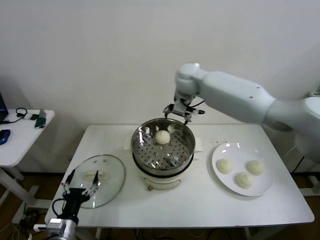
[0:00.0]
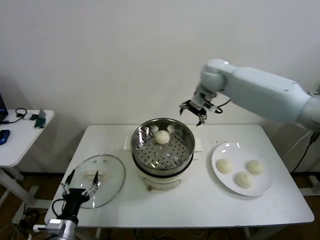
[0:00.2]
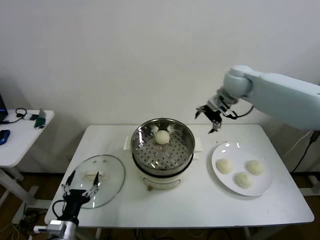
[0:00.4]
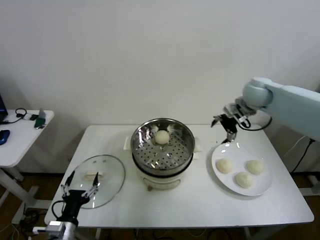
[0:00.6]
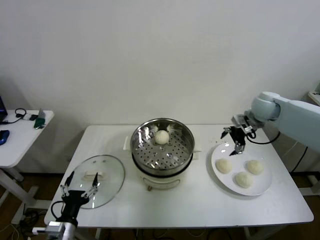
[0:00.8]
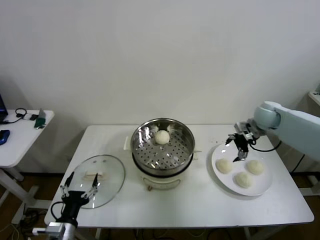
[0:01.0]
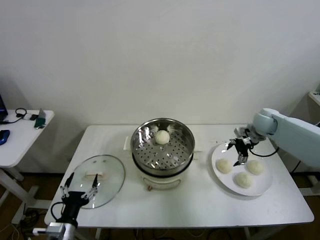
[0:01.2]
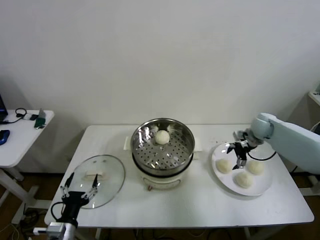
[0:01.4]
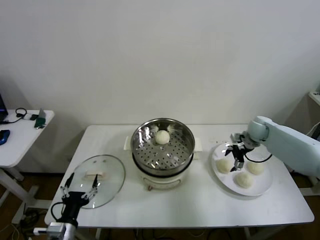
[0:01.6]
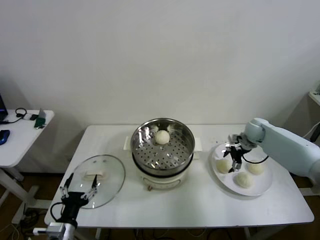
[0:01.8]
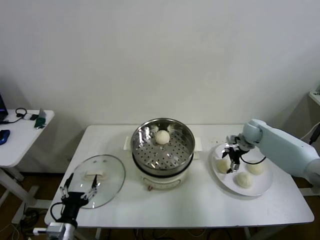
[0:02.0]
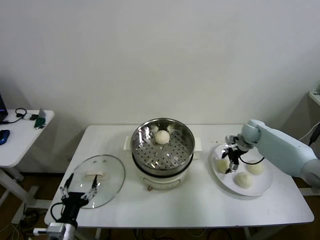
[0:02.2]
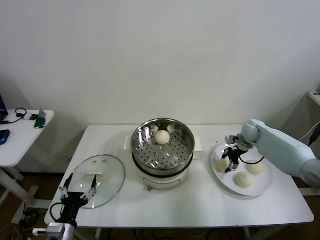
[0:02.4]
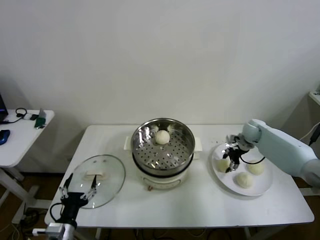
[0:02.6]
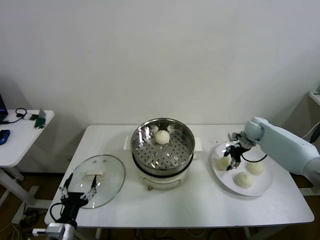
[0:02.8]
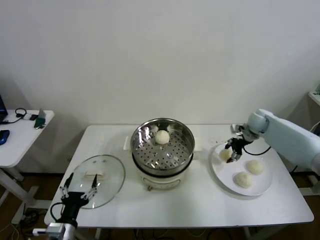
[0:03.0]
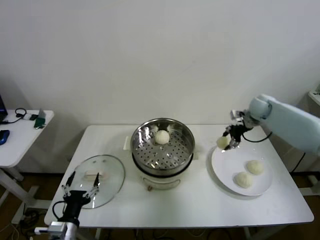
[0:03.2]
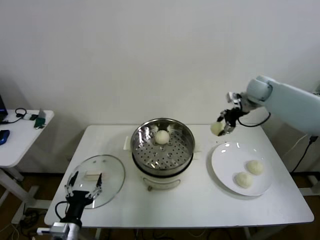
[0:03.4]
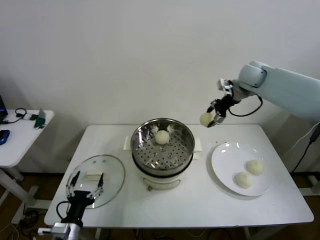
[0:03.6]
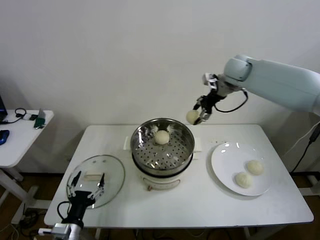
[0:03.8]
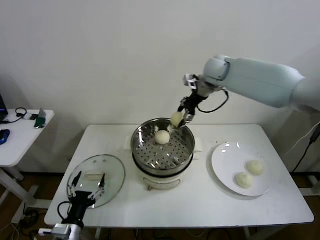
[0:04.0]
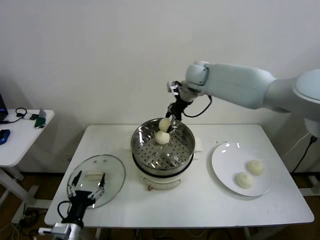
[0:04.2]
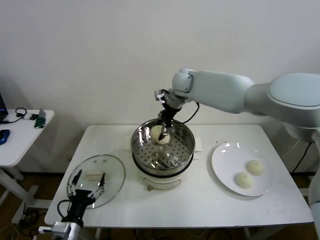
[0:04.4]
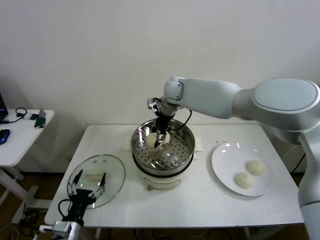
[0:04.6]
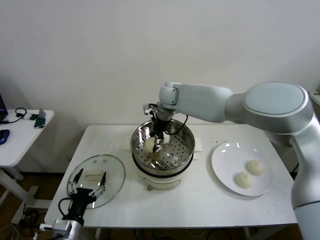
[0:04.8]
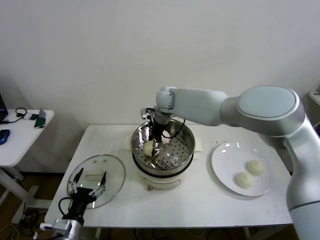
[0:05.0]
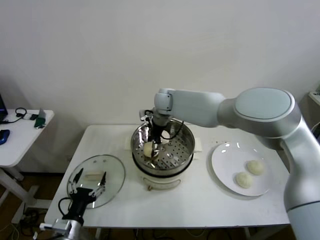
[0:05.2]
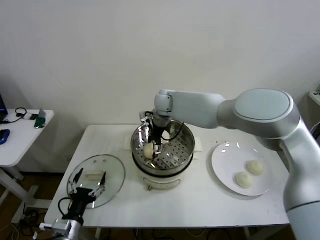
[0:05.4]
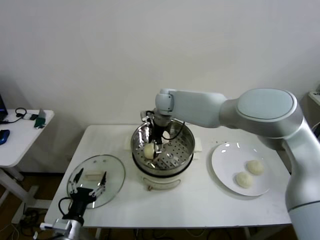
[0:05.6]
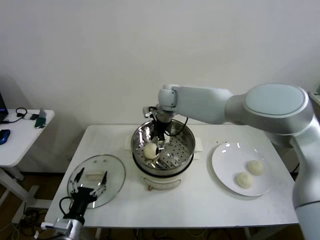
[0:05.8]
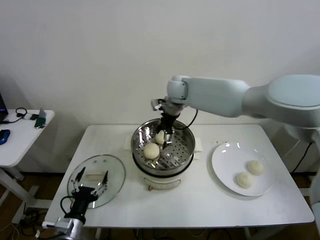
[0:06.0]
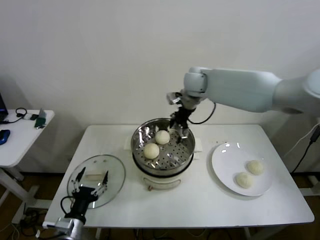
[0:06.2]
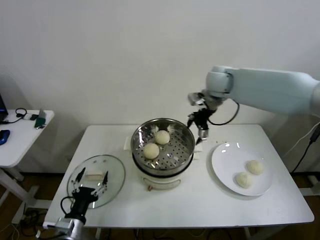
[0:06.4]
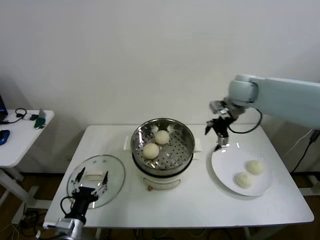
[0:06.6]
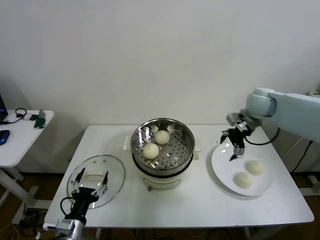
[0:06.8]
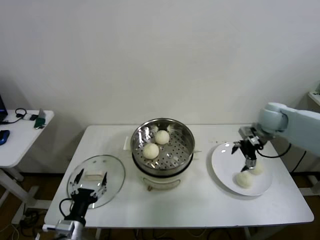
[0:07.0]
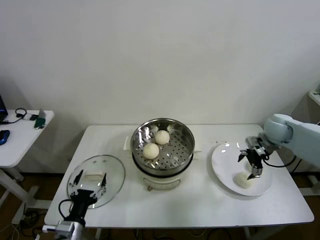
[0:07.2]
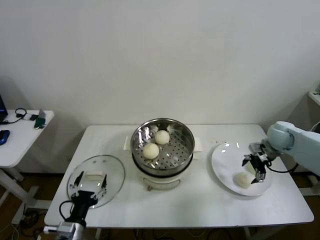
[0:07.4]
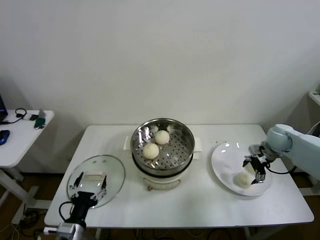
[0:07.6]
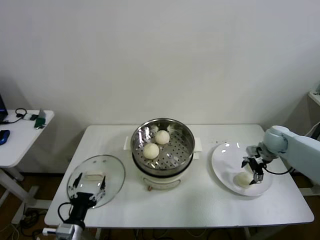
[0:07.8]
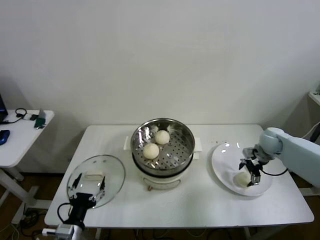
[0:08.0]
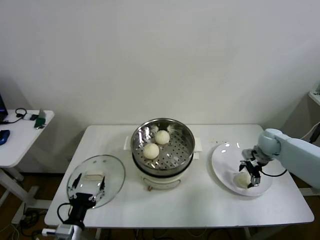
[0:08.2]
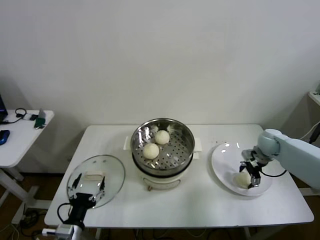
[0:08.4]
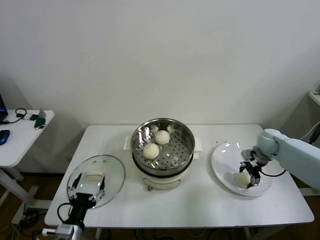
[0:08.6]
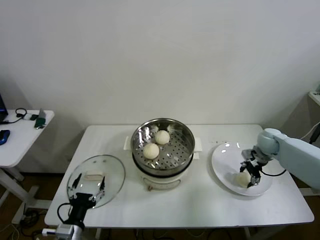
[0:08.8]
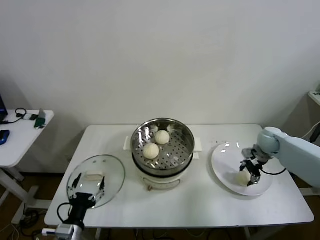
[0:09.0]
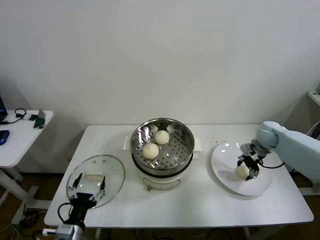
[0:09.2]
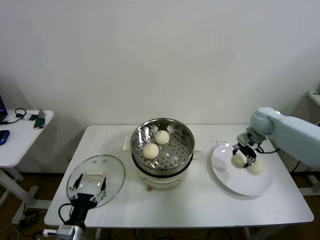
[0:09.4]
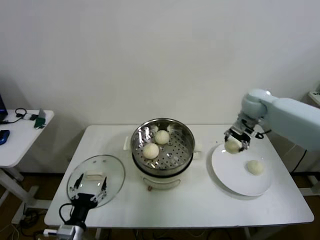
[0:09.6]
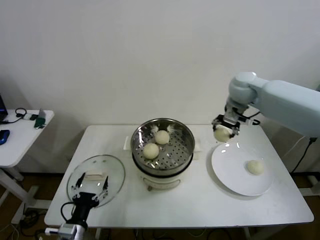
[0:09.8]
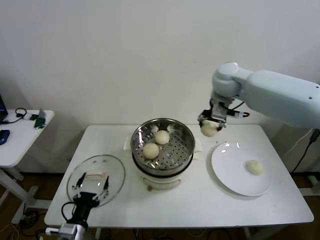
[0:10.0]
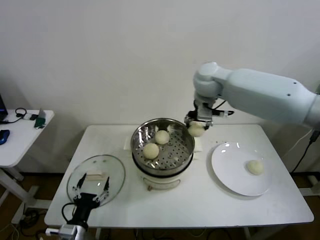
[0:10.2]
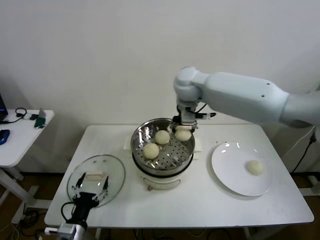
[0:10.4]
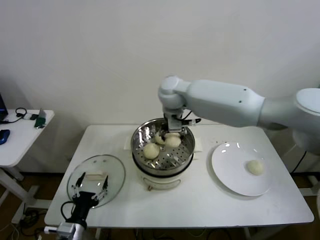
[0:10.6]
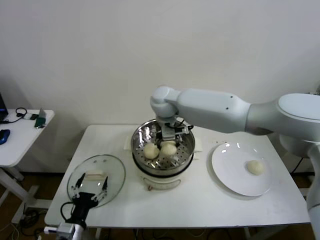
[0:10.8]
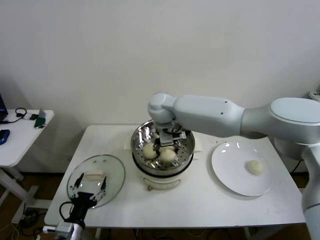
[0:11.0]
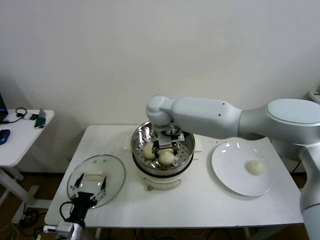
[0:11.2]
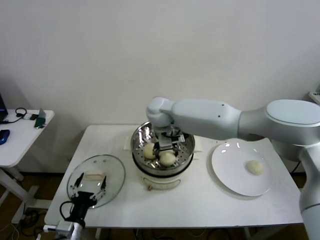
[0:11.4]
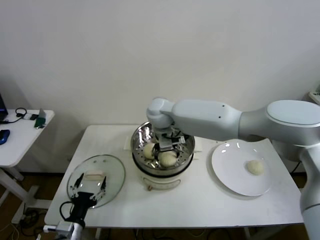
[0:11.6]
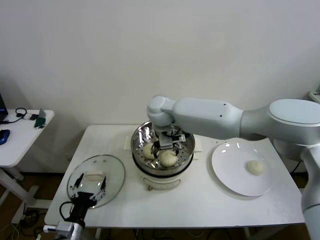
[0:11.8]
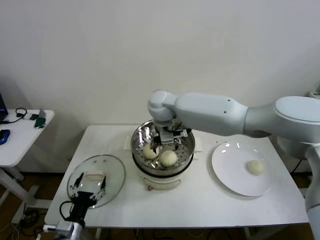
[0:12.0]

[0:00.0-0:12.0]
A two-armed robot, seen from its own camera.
Step, 0:00.0 to 0:02.2: Grasp the baozi in the plate with right gripper.
Step, 0:02.6 to 0:05.6: Place the baozi on the steamer with right gripper.
Step, 0:05.8 to 0:08.8: Grasp the baozi in the plate with right gripper.
Step, 0:09.0 to 0:11.4: Place the baozi on the steamer with right gripper.
0:00.0 to 0:01.6: The right gripper moves to the right and downward, roughly 35 cm.
0:01.6 to 0:03.0: The right gripper moves approximately 5 cm, and closes up.
0:03.0 to 0:04.4: The right gripper moves to the left and upward, about 35 cm.
0:04.4 to 0:06.0: The right gripper opens up.
0:06.0 to 0:07.6: The right gripper moves to the right and downward, approximately 40 cm.
0:07.6 to 0:09.0: The right gripper closes.
0:09.0 to 0:10.4: The right gripper is displaced to the left and upward by approximately 40 cm.
0:10.4 to 0:12.0: The right gripper travels to the left and downward by roughly 10 cm, and opens up.

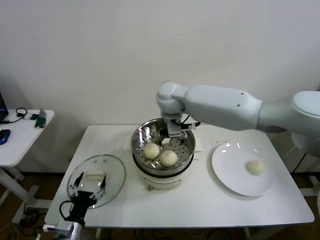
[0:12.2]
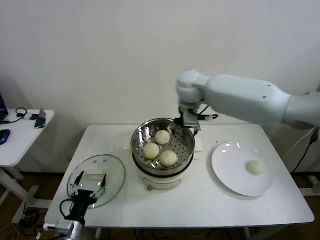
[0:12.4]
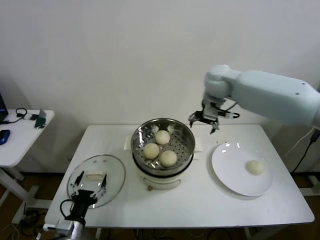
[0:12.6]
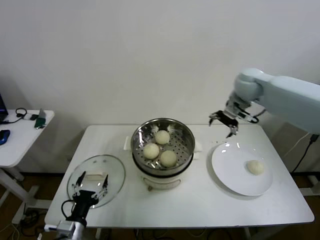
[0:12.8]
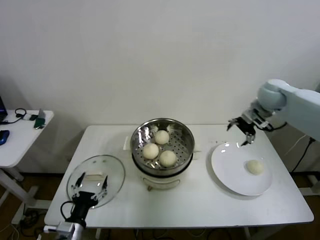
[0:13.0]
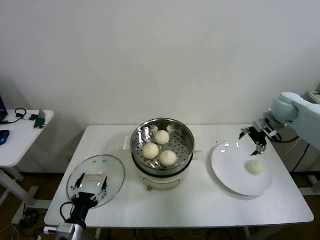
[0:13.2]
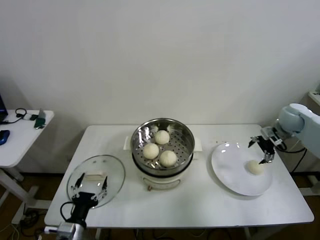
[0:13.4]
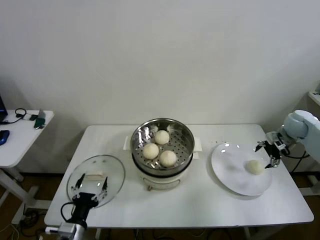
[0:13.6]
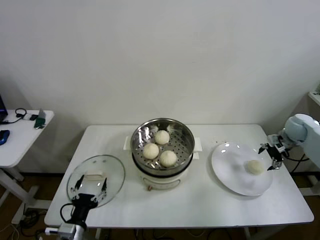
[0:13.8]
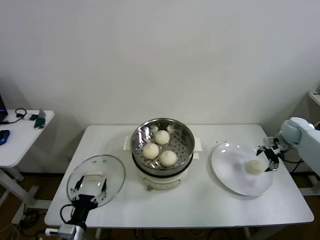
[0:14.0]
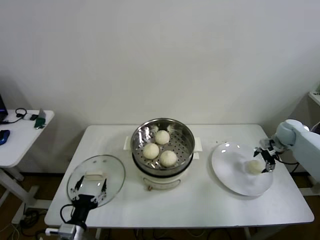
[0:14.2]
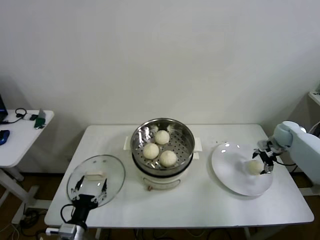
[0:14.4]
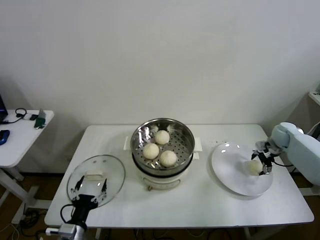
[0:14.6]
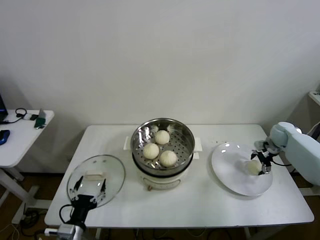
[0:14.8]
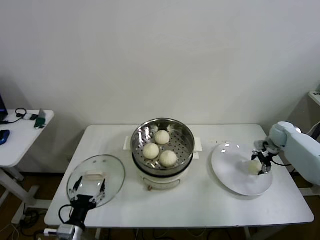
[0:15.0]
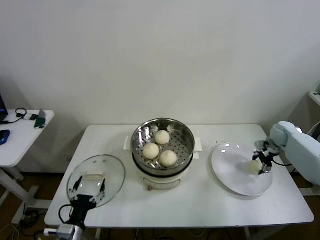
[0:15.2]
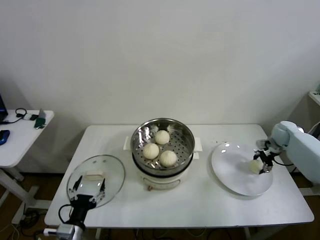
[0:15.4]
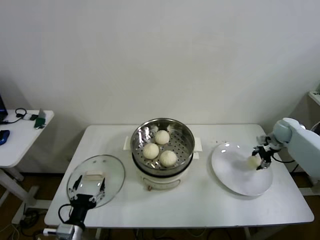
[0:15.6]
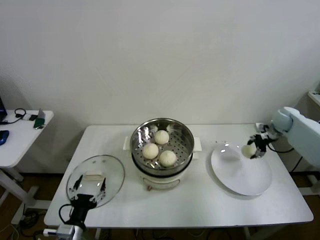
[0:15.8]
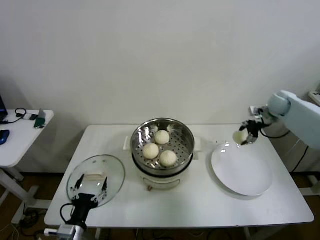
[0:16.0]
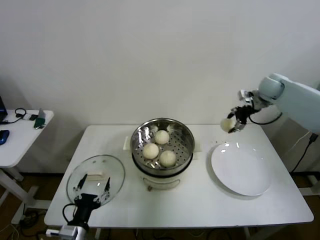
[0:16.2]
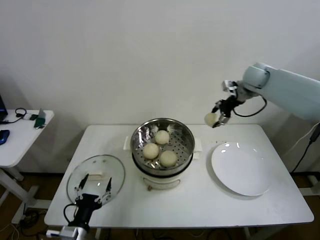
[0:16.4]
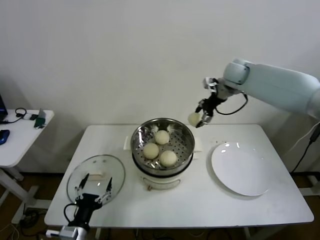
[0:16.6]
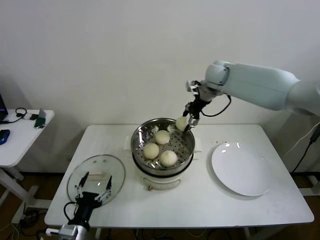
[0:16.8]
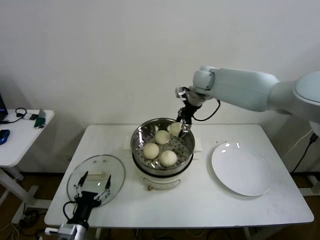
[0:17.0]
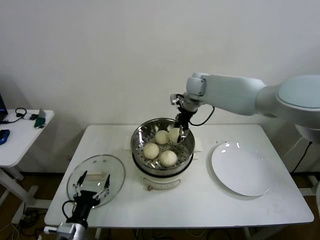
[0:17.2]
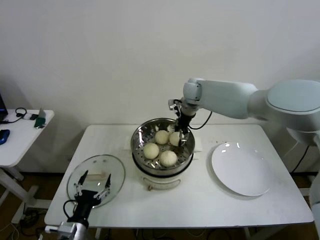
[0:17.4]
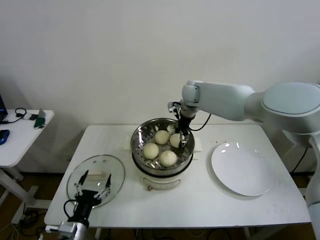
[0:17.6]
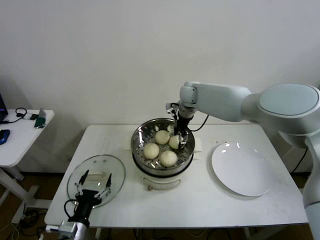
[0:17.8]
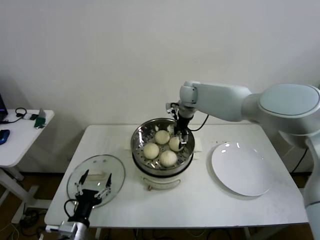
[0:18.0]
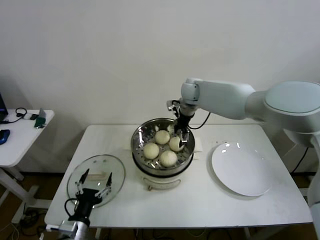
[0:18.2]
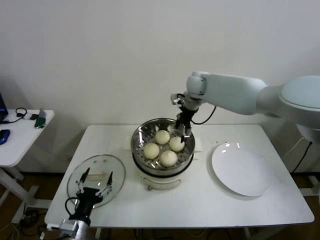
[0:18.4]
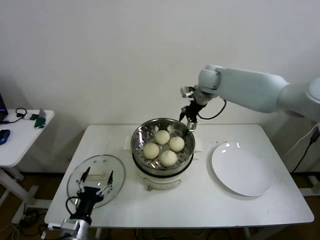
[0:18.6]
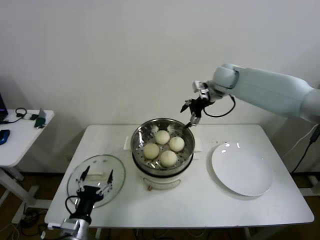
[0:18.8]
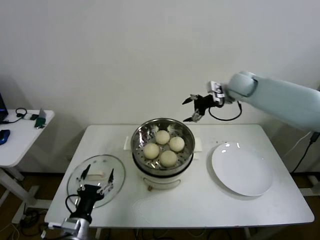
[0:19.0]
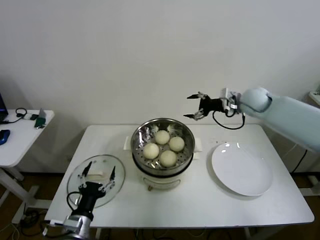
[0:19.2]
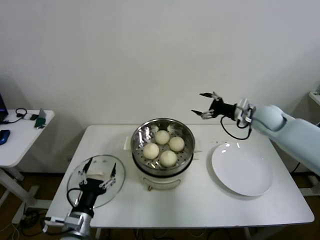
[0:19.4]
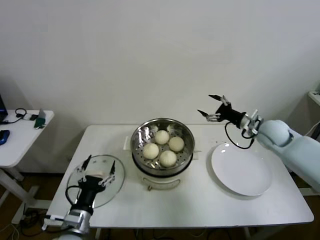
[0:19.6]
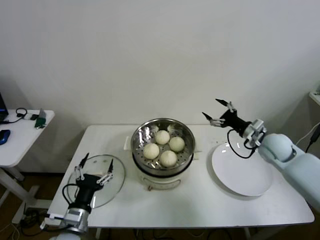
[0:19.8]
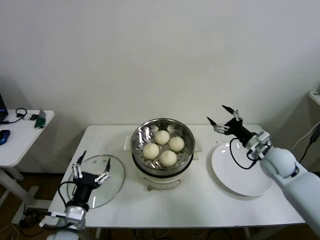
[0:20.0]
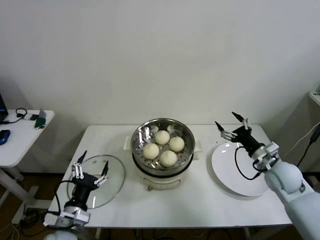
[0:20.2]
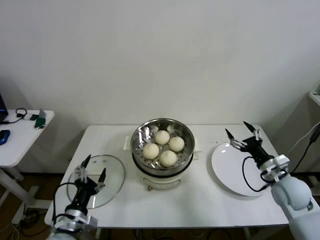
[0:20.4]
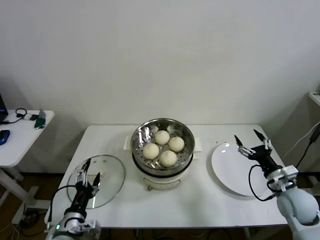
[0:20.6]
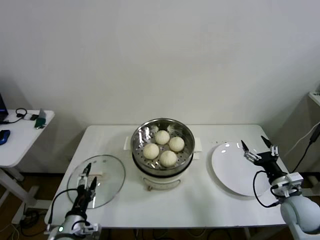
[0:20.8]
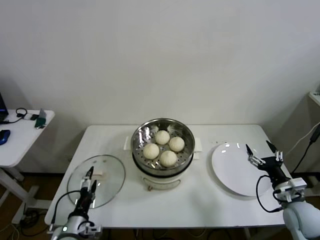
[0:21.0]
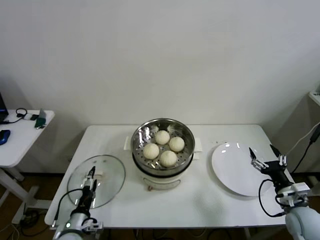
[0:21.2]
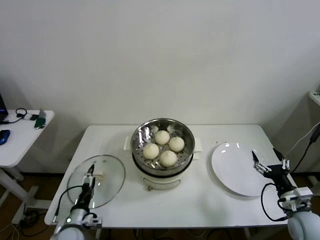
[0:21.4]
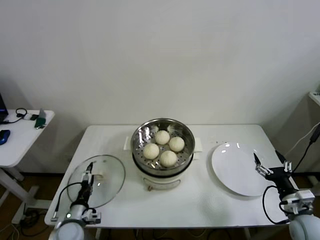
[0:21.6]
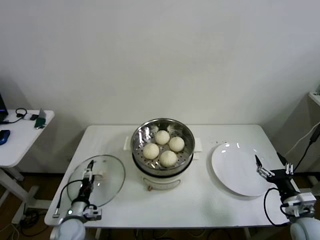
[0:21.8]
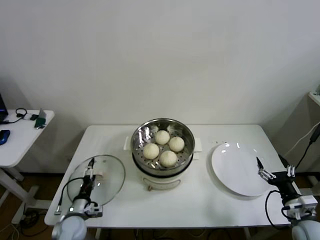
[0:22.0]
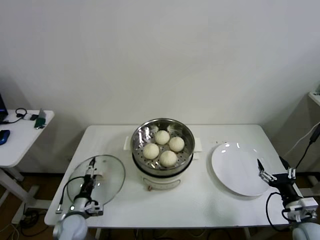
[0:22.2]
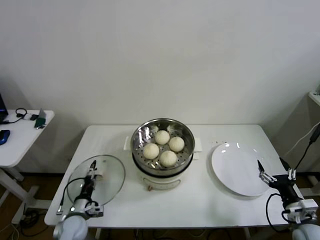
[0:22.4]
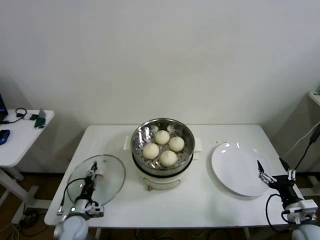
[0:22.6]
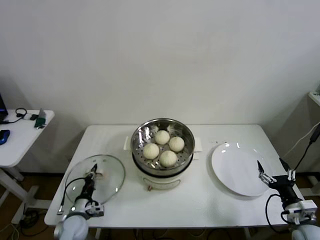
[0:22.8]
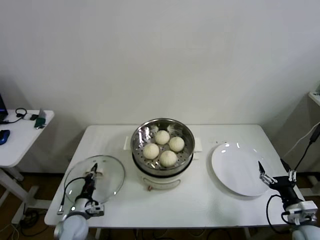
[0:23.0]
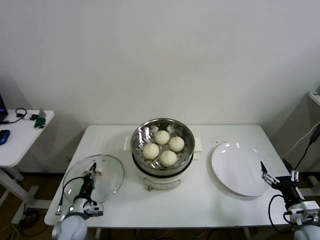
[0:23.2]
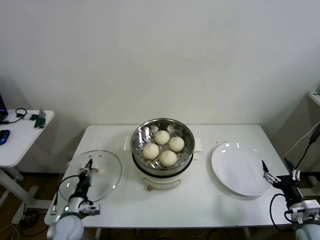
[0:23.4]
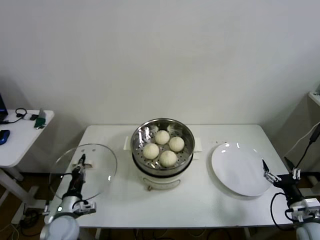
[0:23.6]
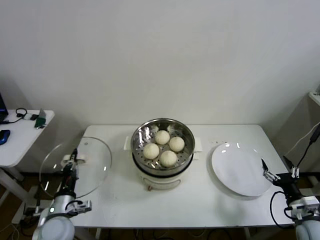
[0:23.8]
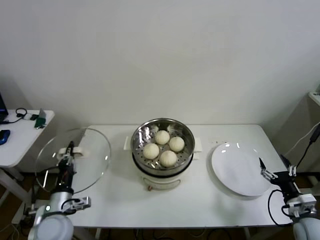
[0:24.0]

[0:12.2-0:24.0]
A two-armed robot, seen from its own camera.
Step, 0:12.2 to 0:15.0: Grasp the baozi in the plate with right gripper.
Step, 0:15.4 to 0:18.0: Place the baozi on the steamer with right gripper.
Step, 0:18.2 to 0:22.8: Grasp the pot lid with left gripper.
0:12.2 to 0:13.6: The right gripper moves to the right, roughly 50 cm.
0:13.6 to 0:15.2: The right gripper shifts about 10 cm downward, and closes.
0:15.2 to 0:16.6: The right gripper travels to the left and upward by roughly 35 cm.
0:16.6 to 0:18.2: The right gripper travels to the left and downward by some 15 cm, and opens.
0:18.2 to 0:19.6: The right gripper moves to the right and backward, about 30 cm.
0:19.6 to 0:21.0: The left gripper shifts approximately 5 cm downward. Meanwhile the right gripper shifts about 25 cm backward and downward.
0:21.0 to 0:22.6: The left gripper travels forward and downward by about 10 cm, and closes its fingers. The right gripper moves backward, roughly 5 cm.
0:22.6 to 0:24.0: The left gripper moves upward, approximately 15 cm, and closes.
